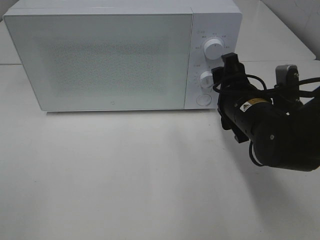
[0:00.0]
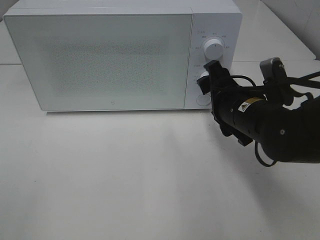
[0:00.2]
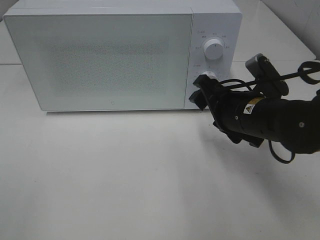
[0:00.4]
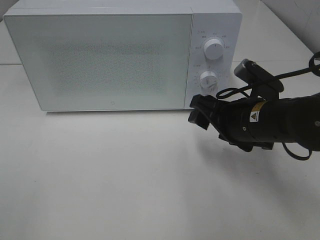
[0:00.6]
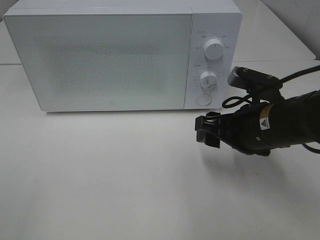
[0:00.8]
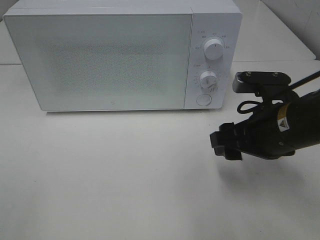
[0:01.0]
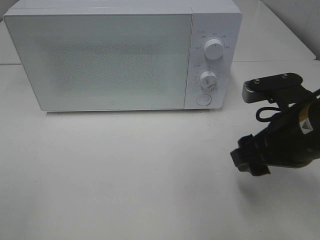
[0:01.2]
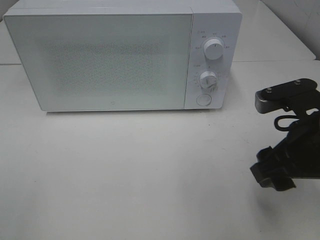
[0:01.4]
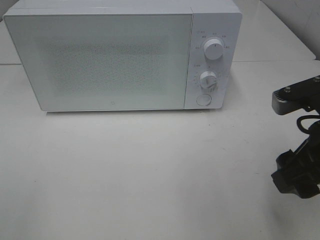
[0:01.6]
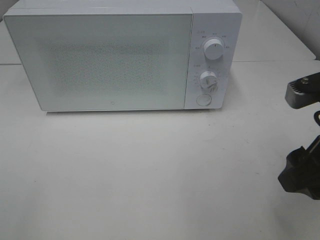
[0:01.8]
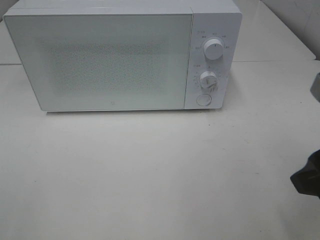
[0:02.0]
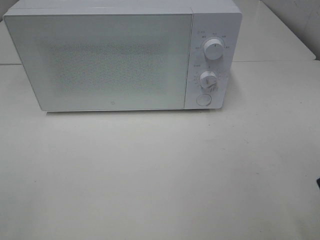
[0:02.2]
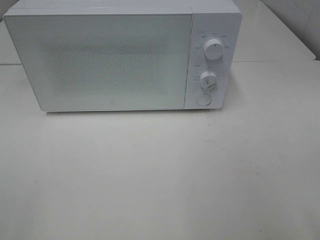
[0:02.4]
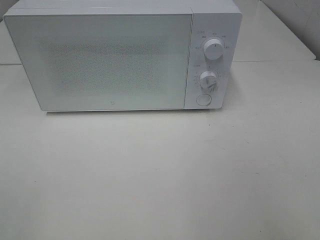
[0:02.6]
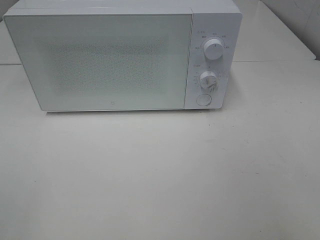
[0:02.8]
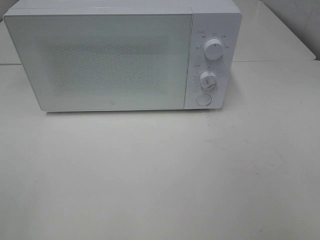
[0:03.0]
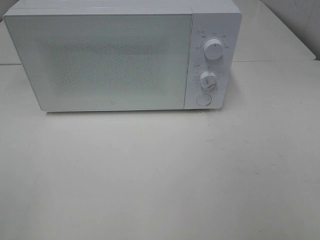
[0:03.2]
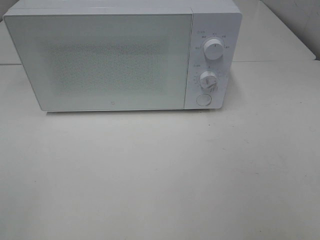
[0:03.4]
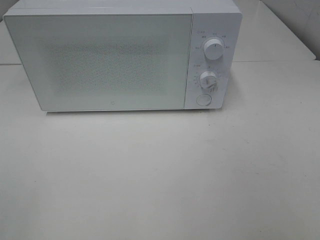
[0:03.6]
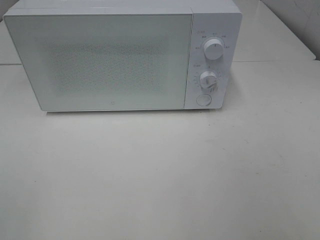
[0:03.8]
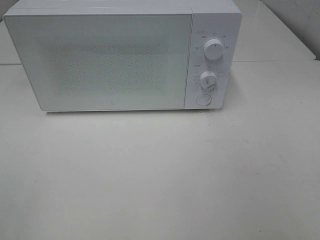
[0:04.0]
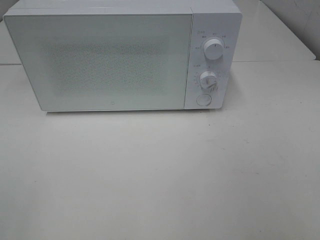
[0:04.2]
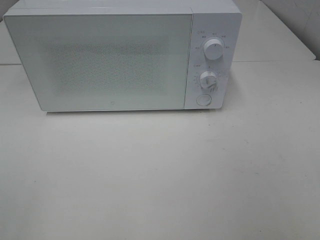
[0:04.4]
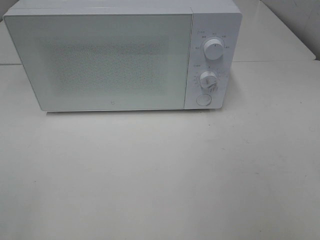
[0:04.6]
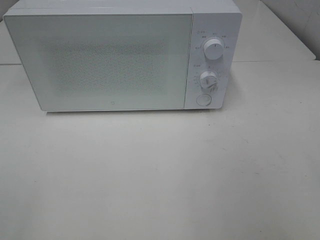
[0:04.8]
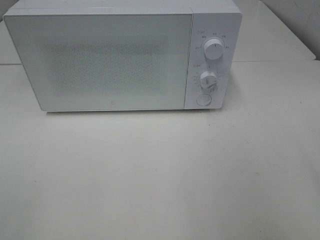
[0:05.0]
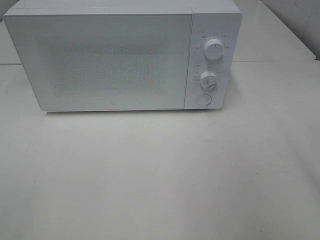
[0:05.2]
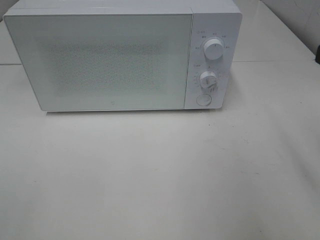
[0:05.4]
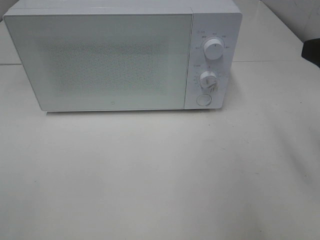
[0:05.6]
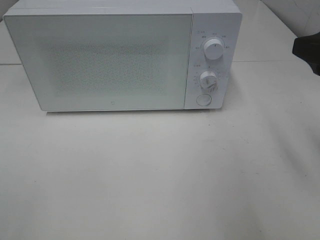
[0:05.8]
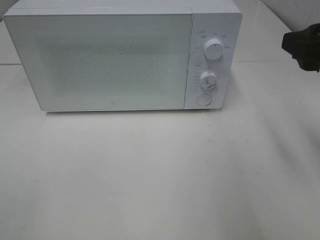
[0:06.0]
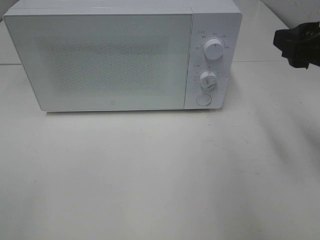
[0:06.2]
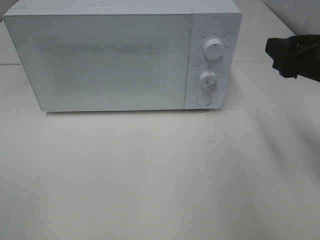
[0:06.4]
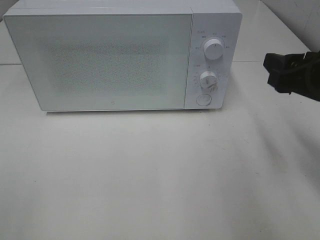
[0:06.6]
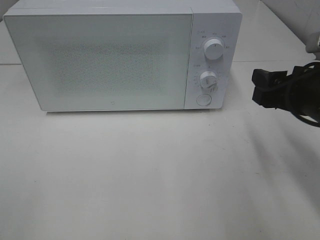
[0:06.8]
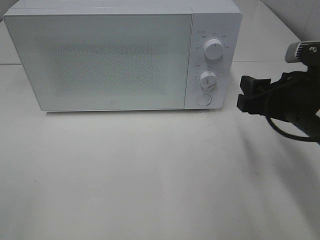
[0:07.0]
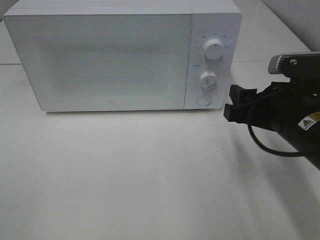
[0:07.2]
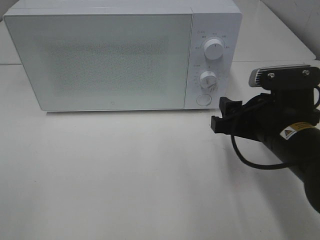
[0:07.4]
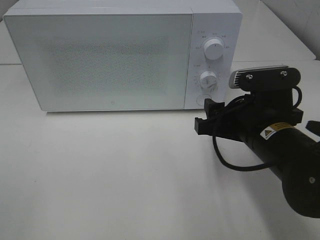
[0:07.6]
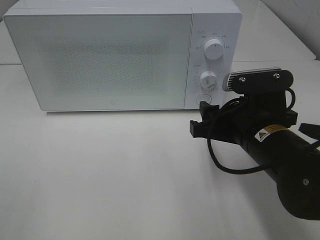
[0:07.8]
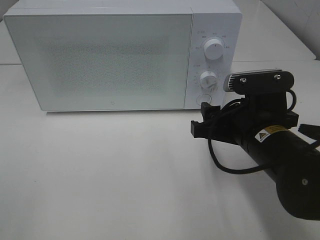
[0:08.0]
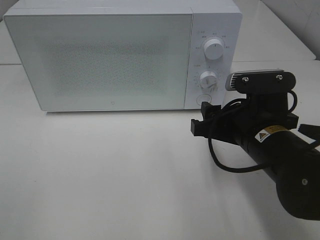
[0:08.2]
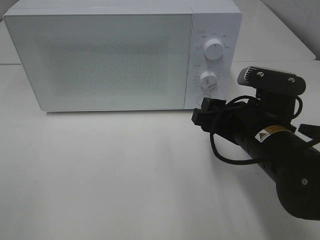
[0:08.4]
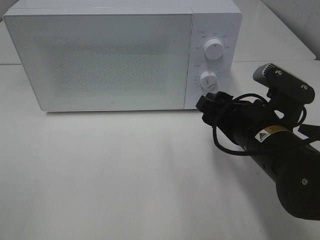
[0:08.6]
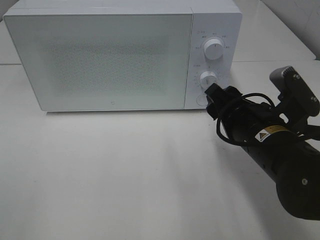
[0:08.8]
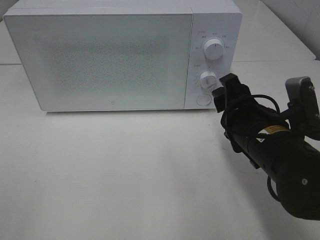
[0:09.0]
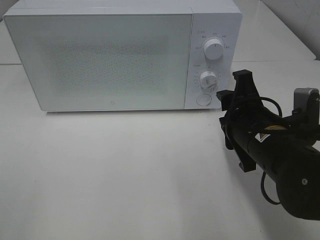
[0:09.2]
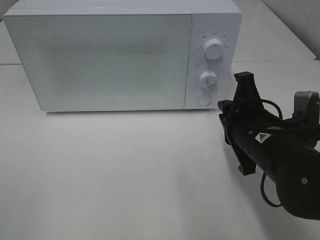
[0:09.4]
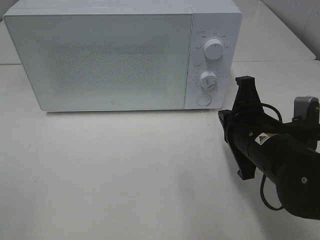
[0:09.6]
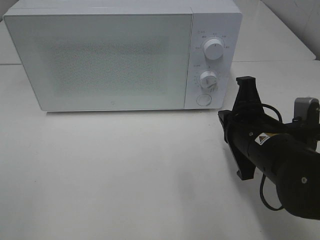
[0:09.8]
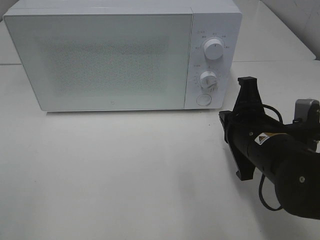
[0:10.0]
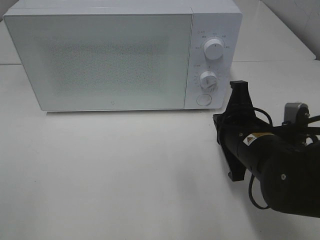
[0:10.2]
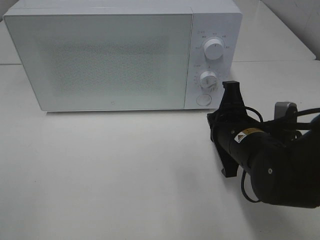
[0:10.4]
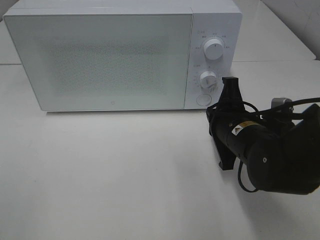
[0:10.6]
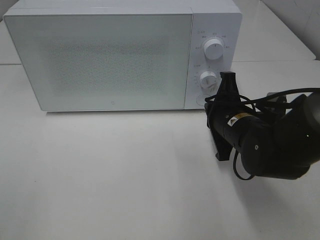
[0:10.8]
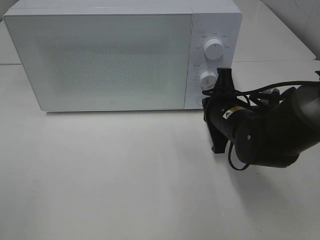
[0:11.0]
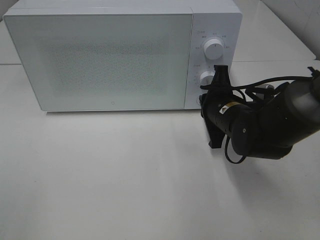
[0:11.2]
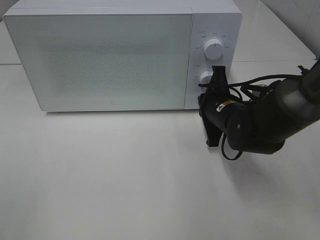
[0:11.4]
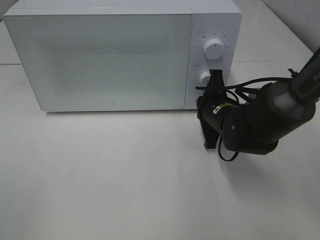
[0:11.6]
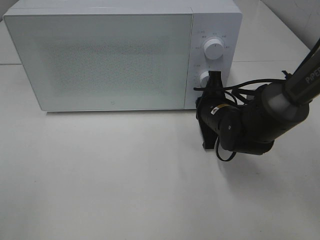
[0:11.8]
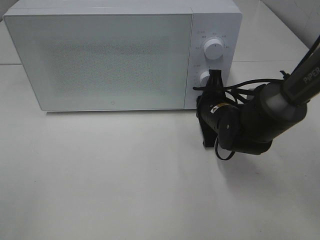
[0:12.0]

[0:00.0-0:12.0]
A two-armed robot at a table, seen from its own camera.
Task of the whole recording: Heat Sandwich.
0:00.0 to 0:01.6: The right gripper shifts approximately 15 cm backward, upward and to the right.
0:01.6 to 0:03.0: The right gripper heads backward, to the right and upward, covering some 20 cm.
0:04.4 to 0:06.0: The right gripper travels forward by approximately 20 cm.
0:06.0 to 0:07.6: The right gripper shifts some 15 cm downward and to the left.
0:09.0 to 0:10.4: The right gripper closes up.
0:10.4 to 0:12.0: The right gripper travels forward by some 10 cm.

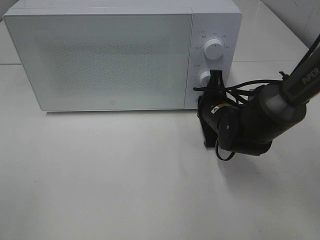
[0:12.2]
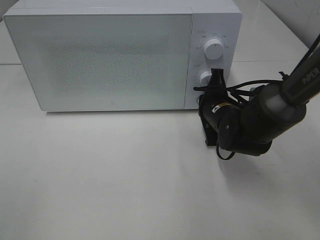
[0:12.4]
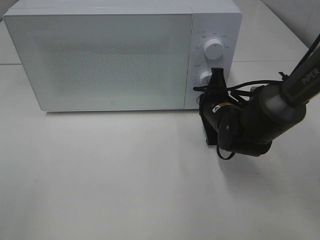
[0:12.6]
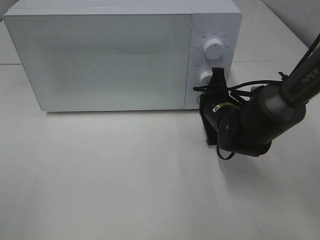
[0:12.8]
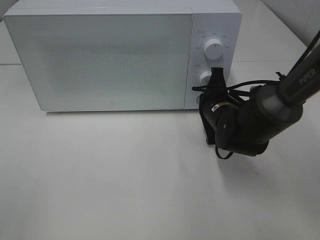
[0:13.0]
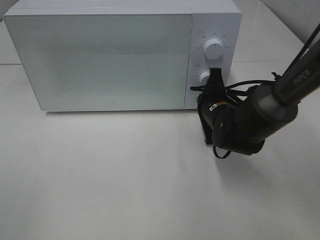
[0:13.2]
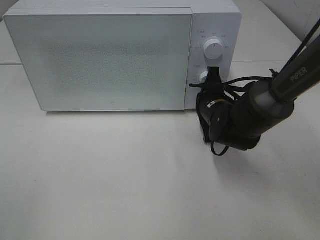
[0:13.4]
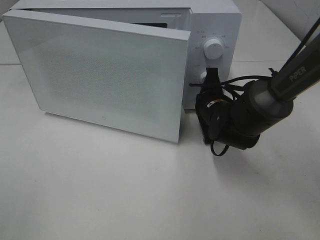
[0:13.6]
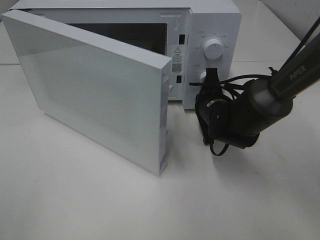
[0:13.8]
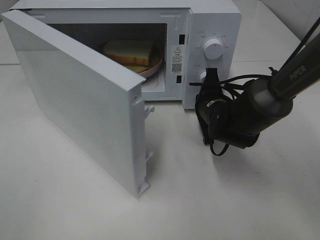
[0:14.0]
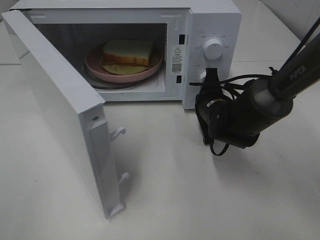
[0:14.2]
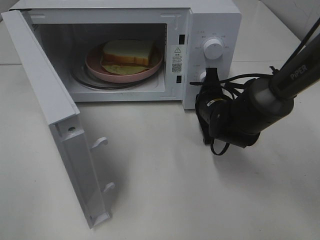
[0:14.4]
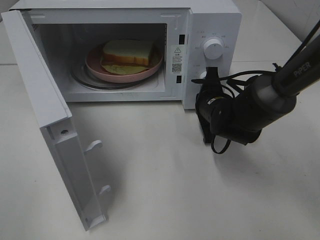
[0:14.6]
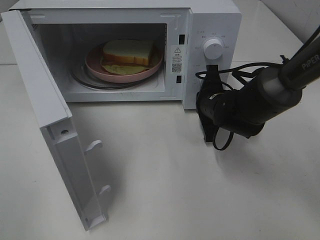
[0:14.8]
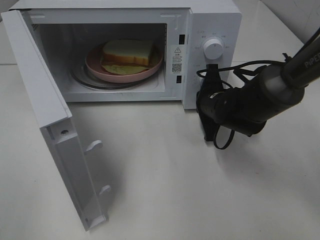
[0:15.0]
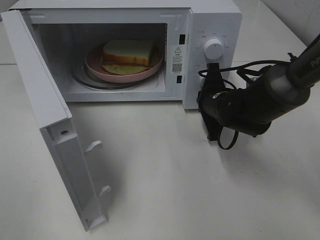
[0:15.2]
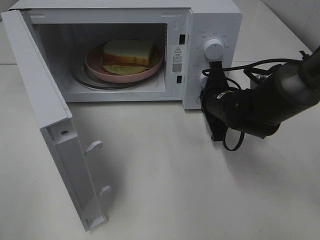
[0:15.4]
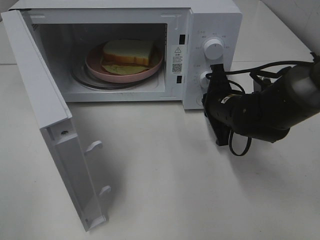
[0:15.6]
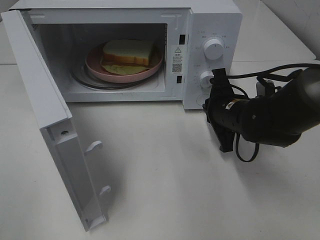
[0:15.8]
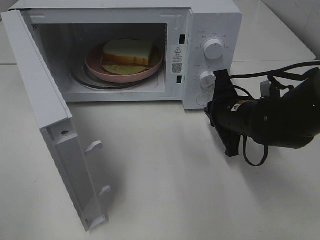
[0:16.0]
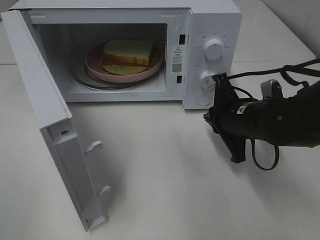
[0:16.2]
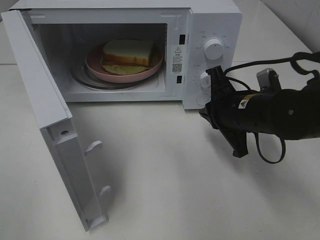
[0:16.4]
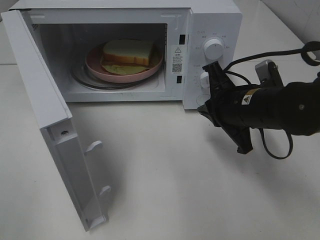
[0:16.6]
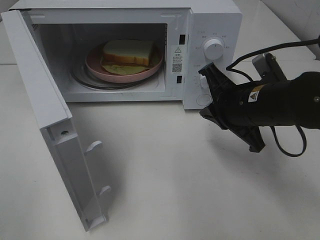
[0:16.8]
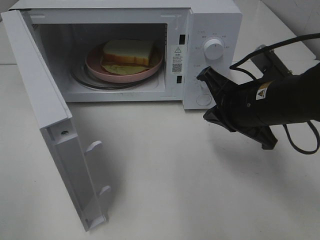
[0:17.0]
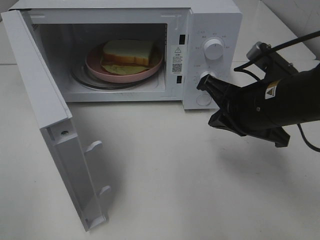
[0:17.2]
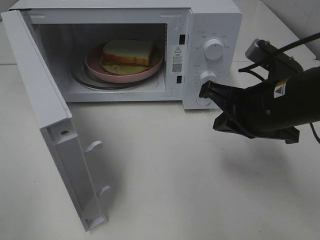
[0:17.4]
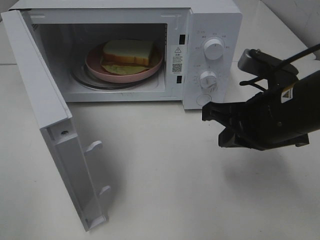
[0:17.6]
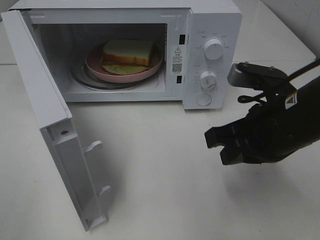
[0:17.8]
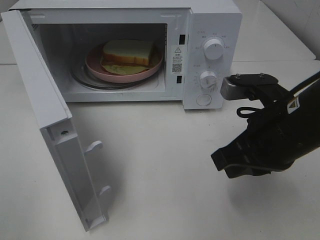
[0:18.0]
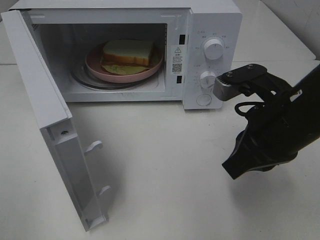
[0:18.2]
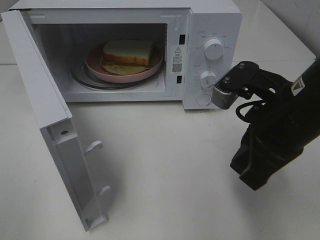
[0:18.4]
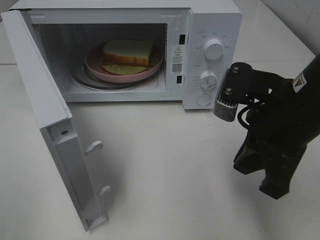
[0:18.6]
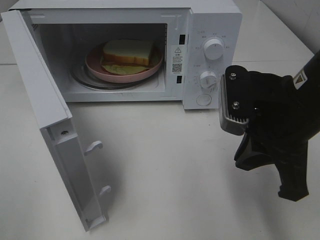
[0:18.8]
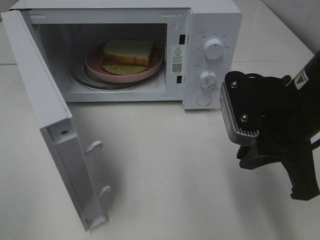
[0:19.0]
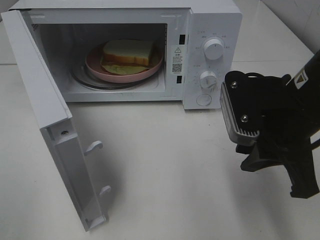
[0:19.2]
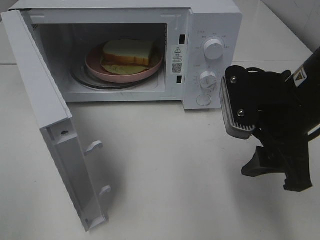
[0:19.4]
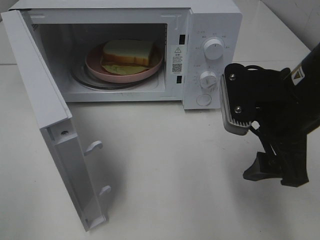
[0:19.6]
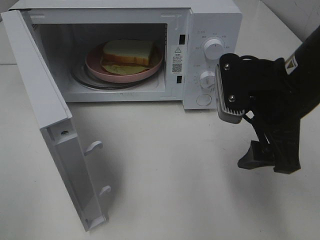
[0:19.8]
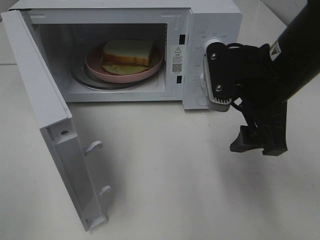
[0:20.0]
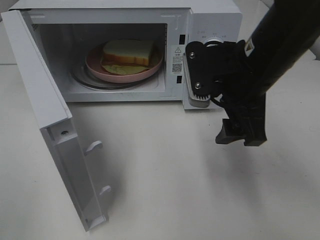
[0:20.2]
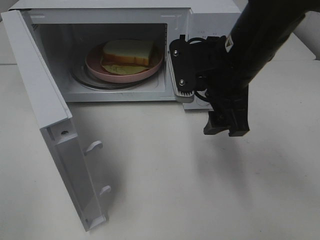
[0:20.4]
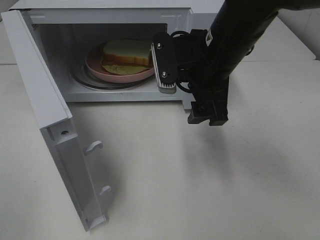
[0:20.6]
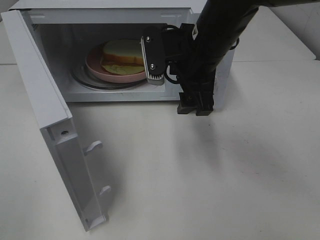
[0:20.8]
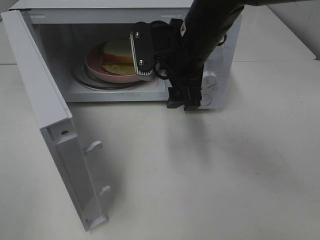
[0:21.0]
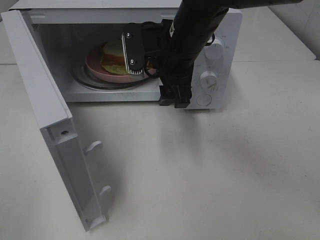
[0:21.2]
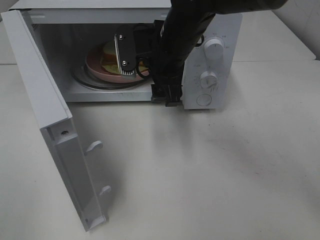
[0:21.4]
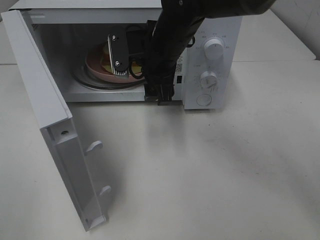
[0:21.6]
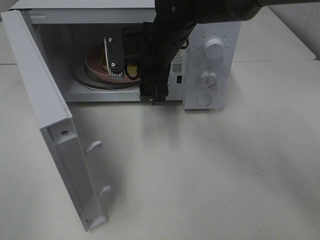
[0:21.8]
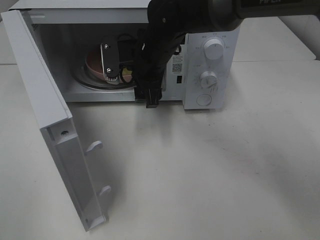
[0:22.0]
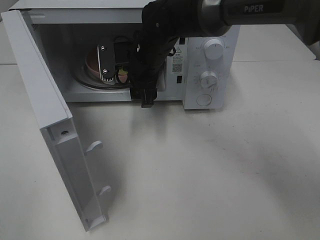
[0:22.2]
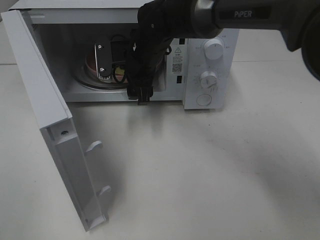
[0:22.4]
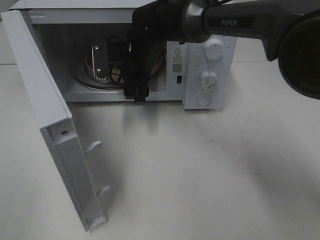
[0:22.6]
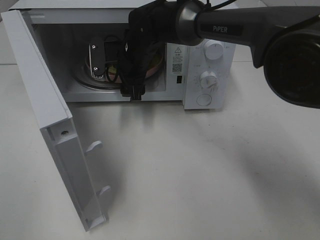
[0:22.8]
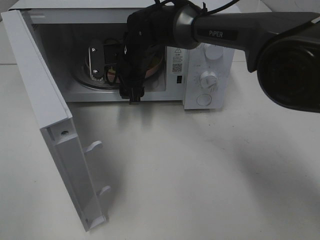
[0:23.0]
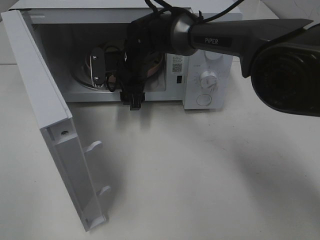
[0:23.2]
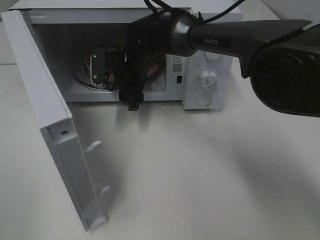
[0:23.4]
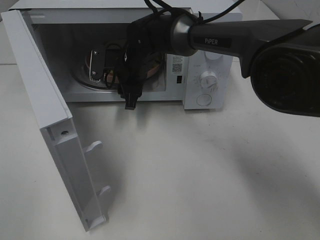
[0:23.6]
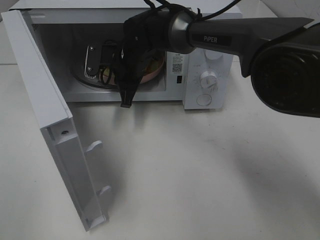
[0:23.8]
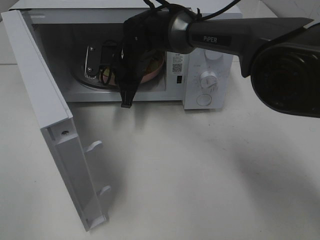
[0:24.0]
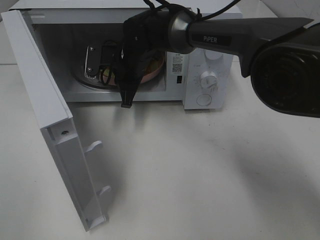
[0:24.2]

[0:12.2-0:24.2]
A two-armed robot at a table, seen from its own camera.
Task of the whole recording: Heat Sandwich.
Step, 0:12.2 to 0:16.0: Right hand: press the switch.
0:15.2 to 0:16.6: The right gripper is displaced backward and upward by approximately 10 cm.
0:16.6 to 0:18.2: The right gripper travels backward and upward by roughly 10 cm.
0:18.2 to 0:19.8: The right gripper opens.
0:19.8 to 0:21.2: The right gripper moves to the left and forward, roughly 15 cm.
0:21.2 to 0:22.6: The right gripper heads forward, to the left and downward, covering about 10 cm.
0:22.6 to 0:24.2: The right gripper closes up.
